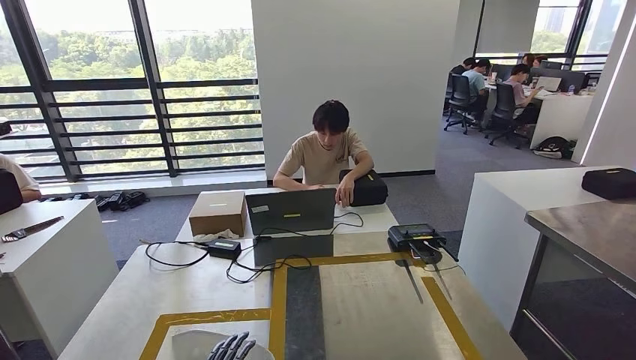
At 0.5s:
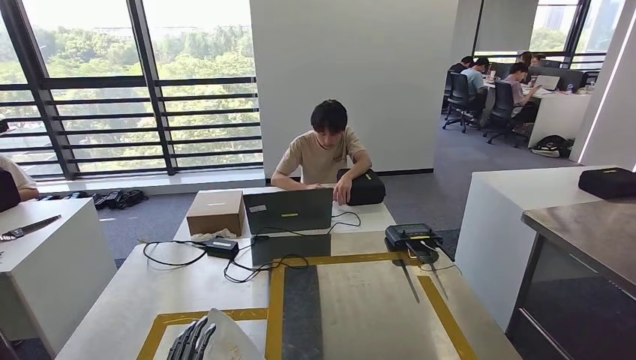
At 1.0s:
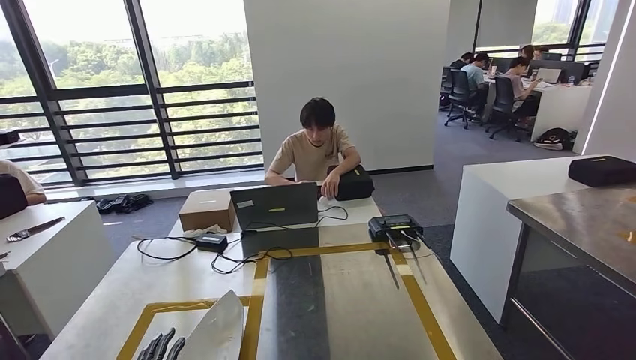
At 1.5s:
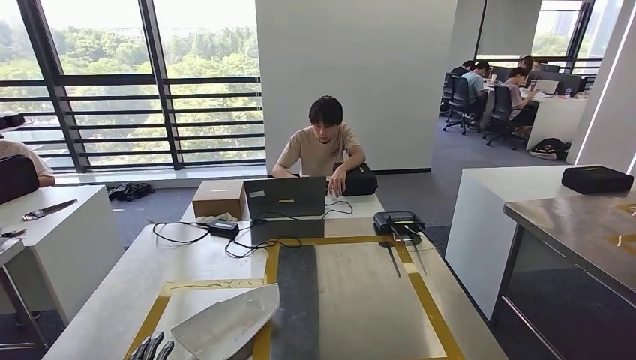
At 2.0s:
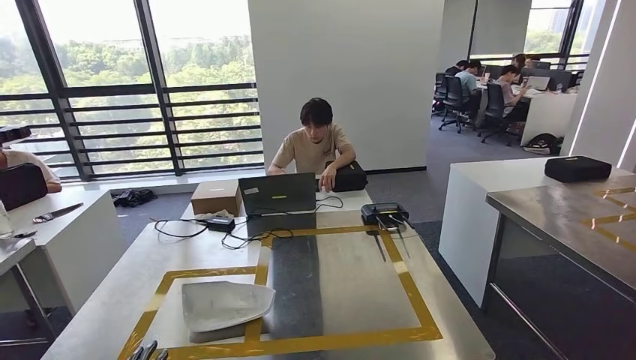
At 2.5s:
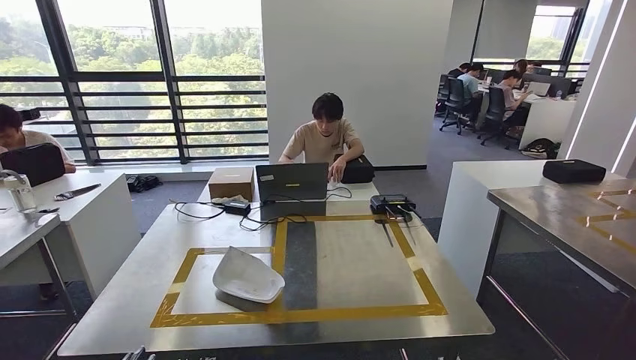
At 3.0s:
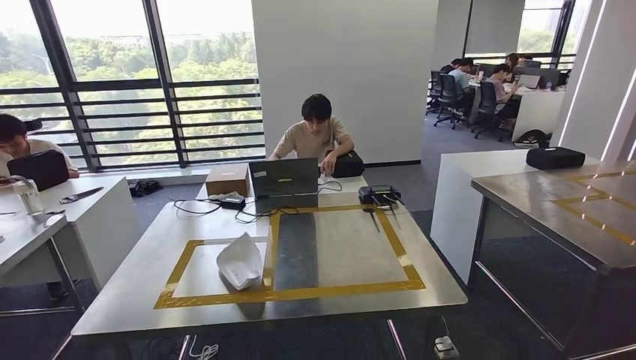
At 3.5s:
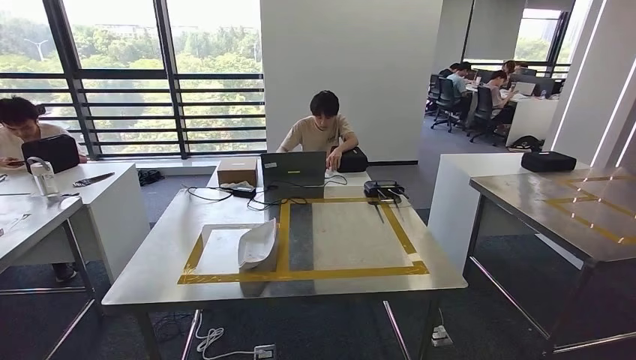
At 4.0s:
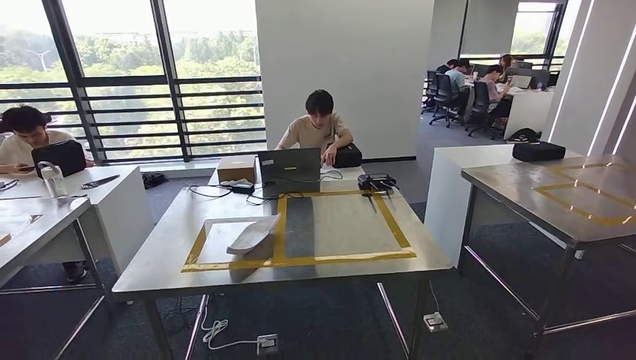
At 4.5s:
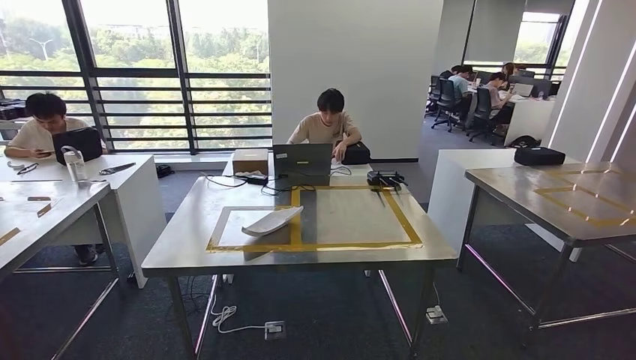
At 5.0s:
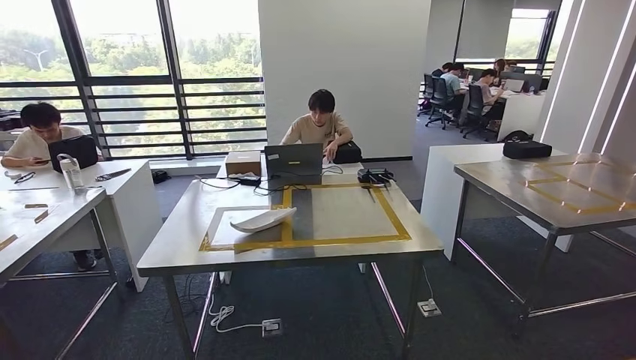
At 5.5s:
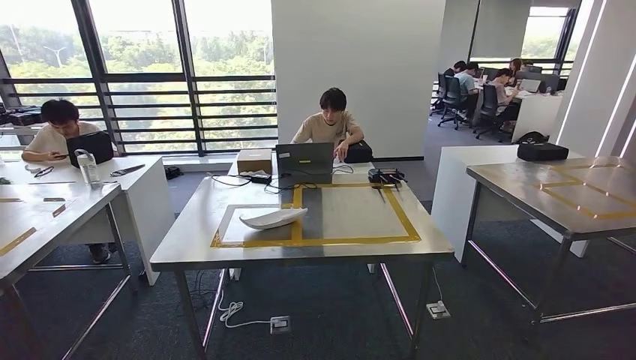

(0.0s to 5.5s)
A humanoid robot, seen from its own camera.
Step, 0.5s - 5.5s: Move to the initial position at the workbench.
